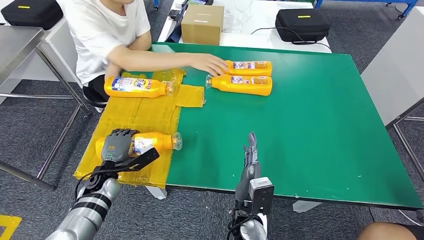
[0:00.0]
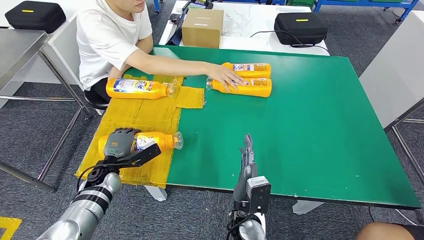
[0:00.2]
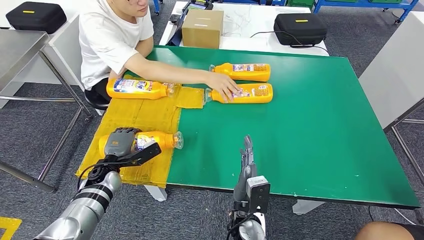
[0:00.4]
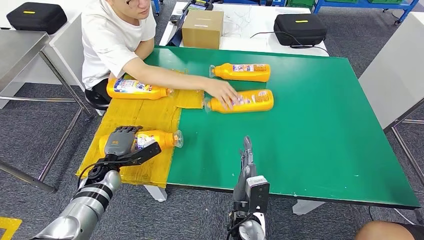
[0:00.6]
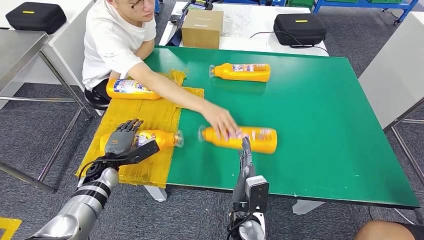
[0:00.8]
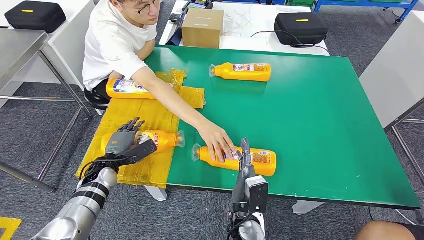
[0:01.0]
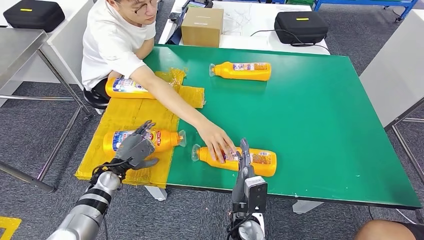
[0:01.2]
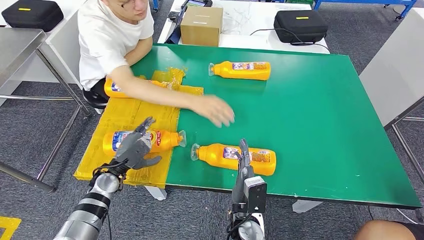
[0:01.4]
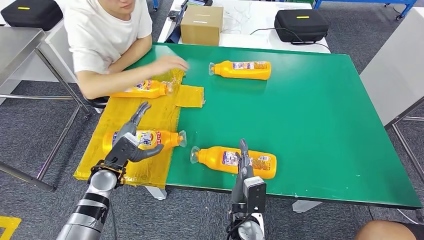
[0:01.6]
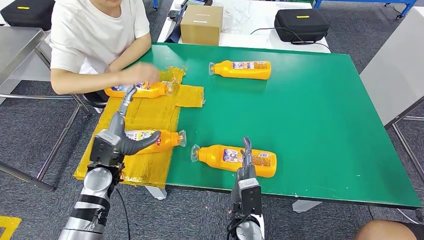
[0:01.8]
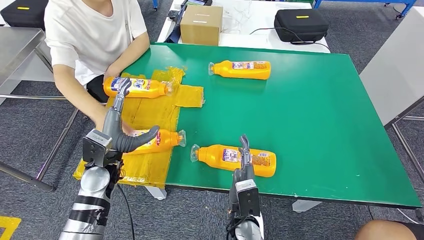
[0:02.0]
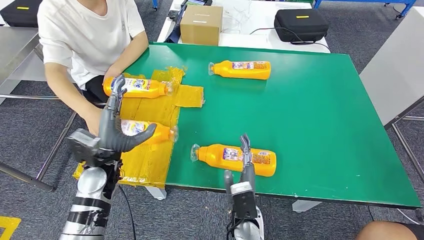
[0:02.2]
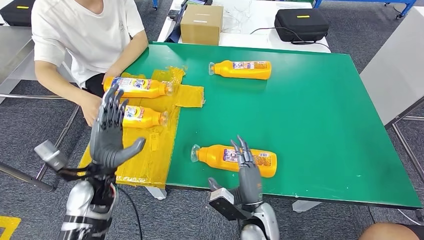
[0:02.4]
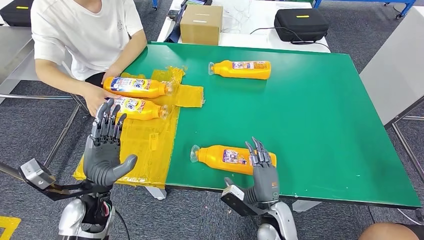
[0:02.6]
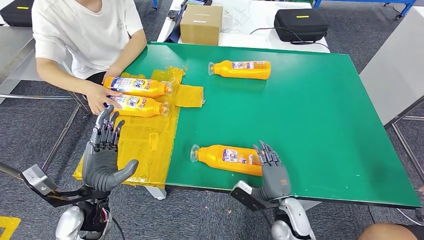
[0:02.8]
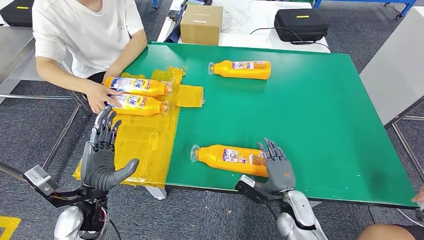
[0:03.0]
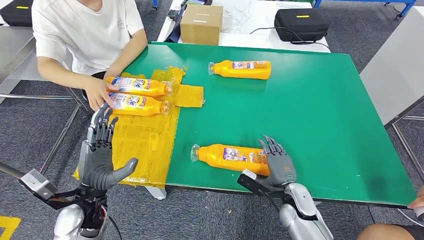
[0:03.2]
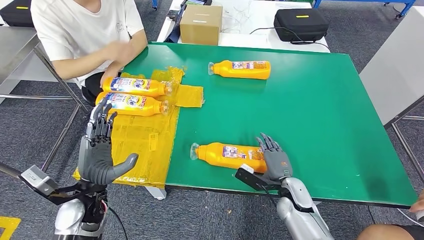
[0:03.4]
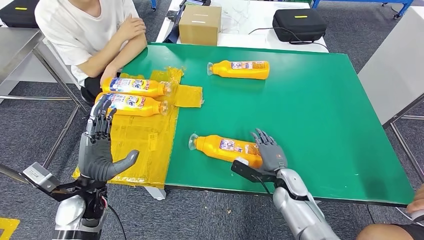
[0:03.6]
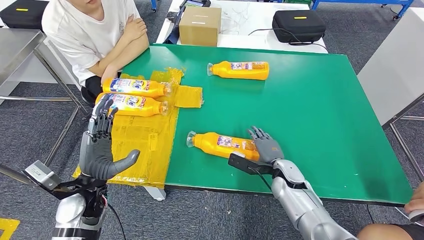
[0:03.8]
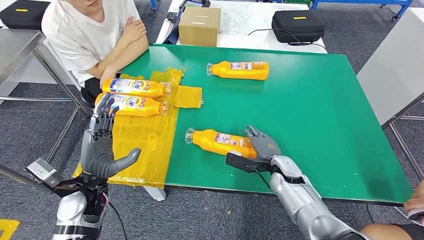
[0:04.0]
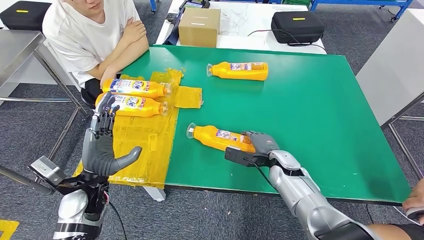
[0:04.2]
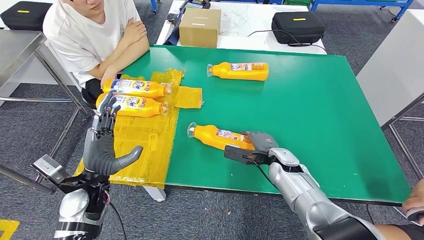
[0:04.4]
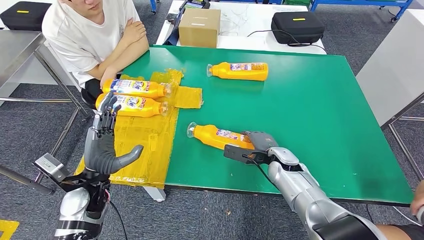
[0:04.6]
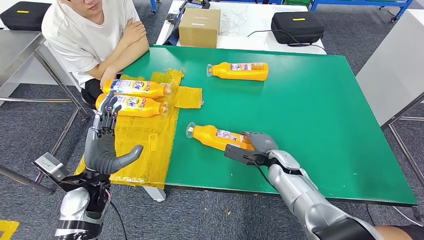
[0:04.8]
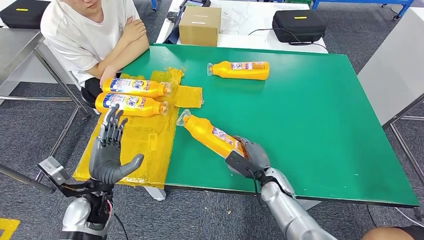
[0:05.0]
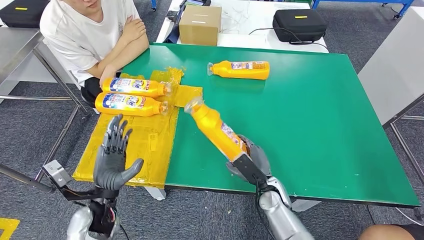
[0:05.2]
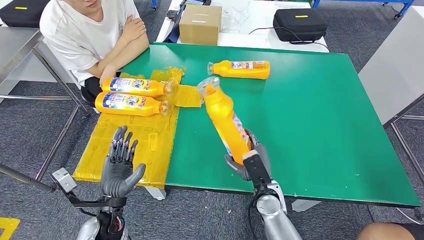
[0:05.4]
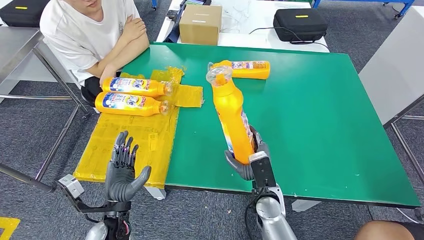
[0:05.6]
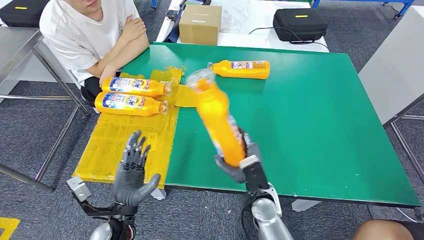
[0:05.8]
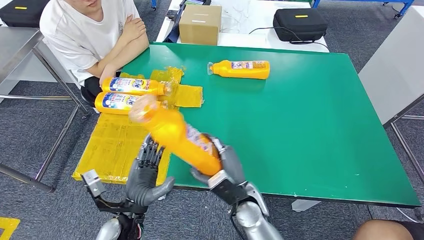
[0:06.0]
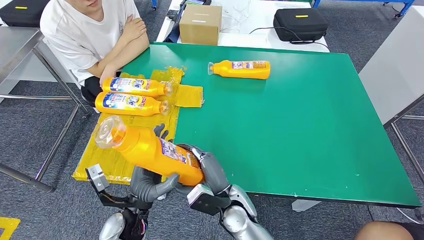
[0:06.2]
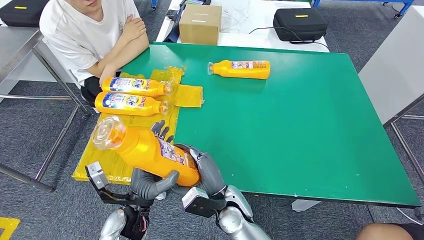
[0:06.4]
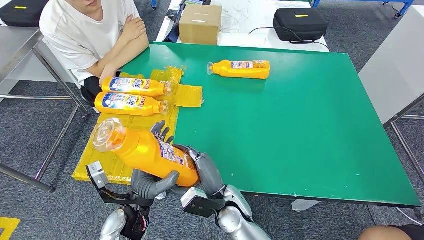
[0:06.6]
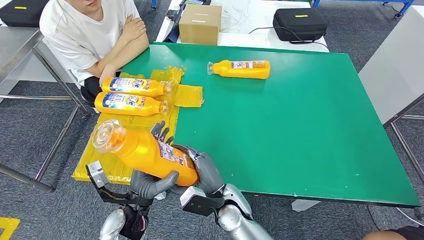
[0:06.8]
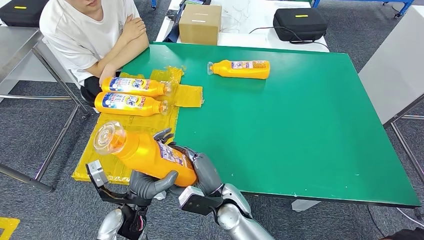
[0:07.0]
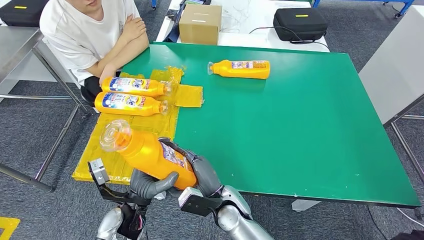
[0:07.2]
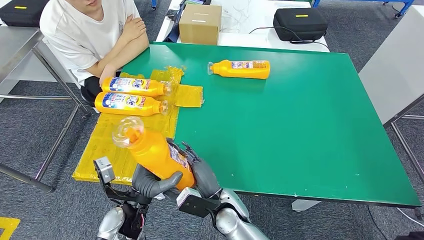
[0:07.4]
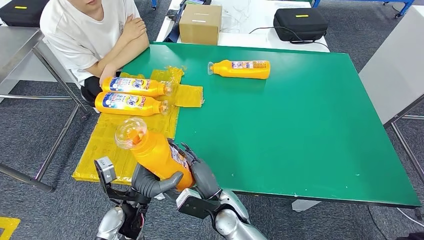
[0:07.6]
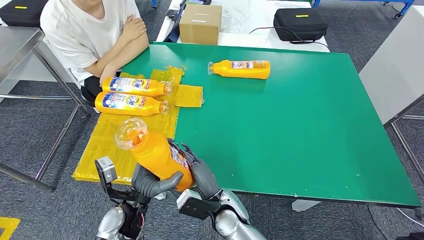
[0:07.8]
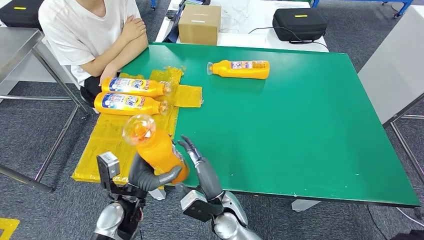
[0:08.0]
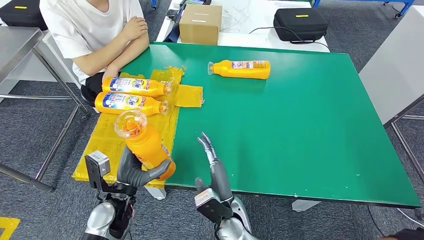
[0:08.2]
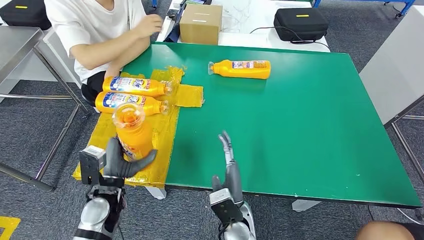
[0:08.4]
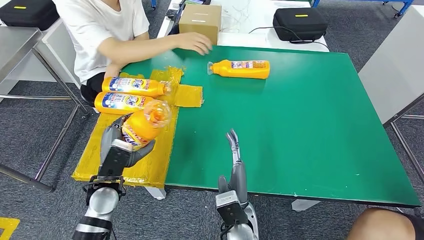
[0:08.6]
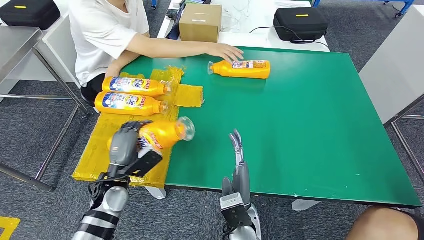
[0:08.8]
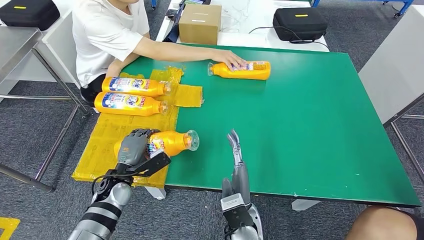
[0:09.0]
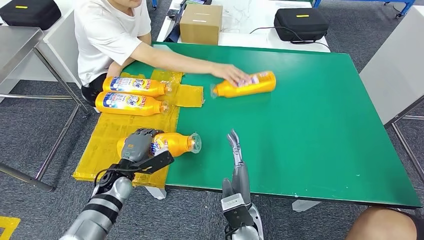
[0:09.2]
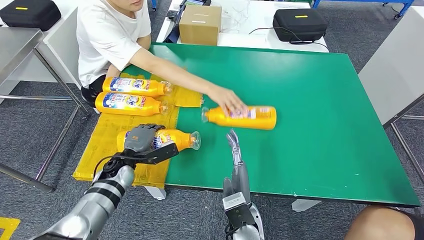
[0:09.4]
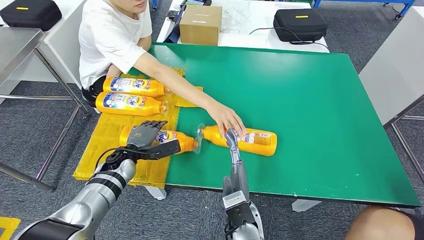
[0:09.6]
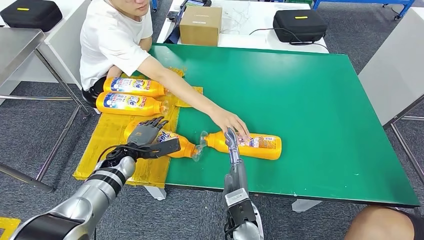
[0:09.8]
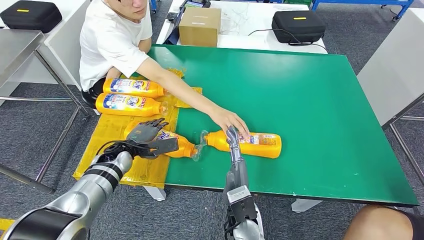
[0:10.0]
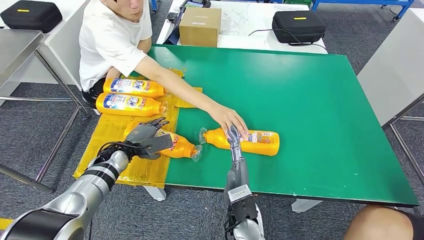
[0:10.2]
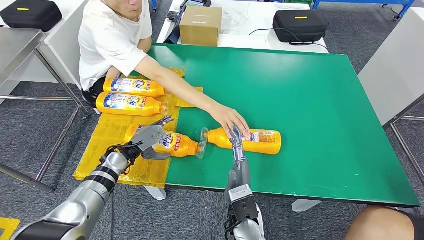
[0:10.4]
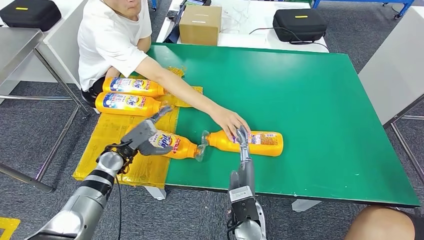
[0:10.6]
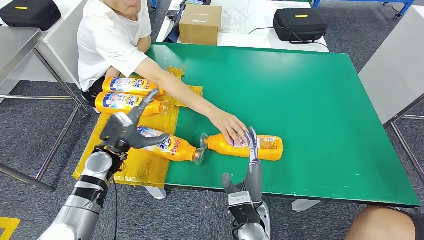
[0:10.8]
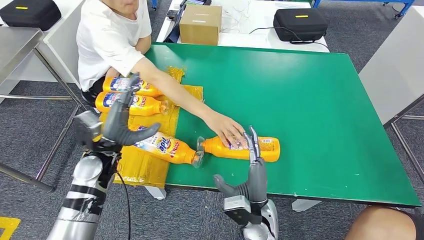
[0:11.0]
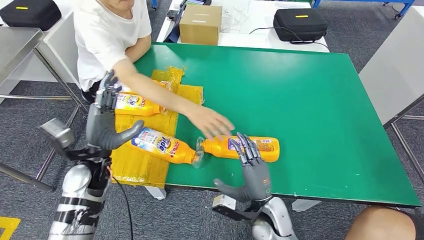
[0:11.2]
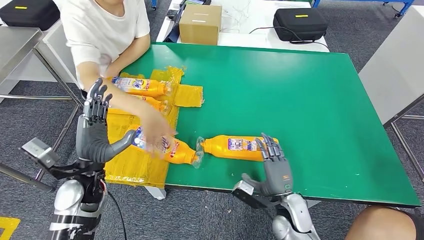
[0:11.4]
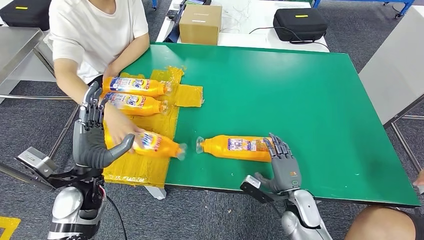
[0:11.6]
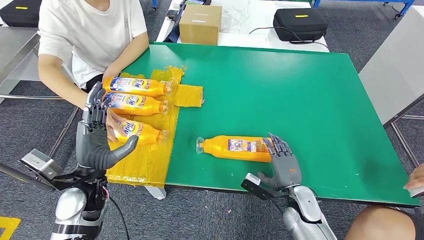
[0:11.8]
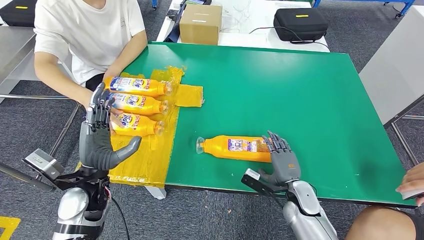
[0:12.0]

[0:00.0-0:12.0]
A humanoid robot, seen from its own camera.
Step, 1.6 to 6.4 s: Pick up the bottle from the table.
Step, 6.6 to 10.4 s: Flip the bottle to face forward.
0.0 to 1.6 s: The left hand shifts some 5 cm upward.
6.0 to 7.6 s: The right hand goes approximately 5 cm to the left.

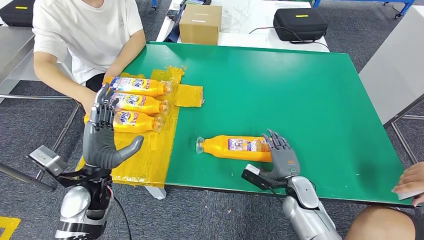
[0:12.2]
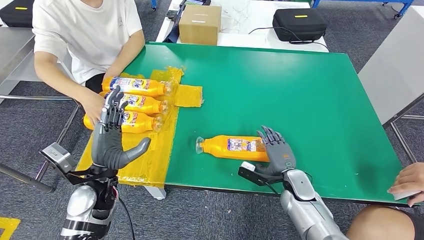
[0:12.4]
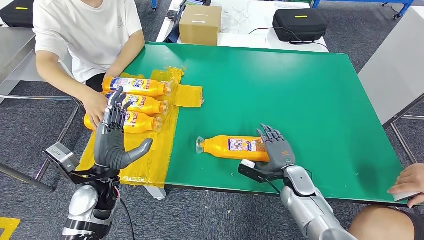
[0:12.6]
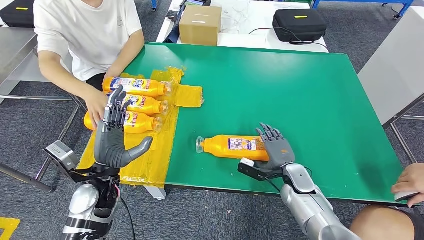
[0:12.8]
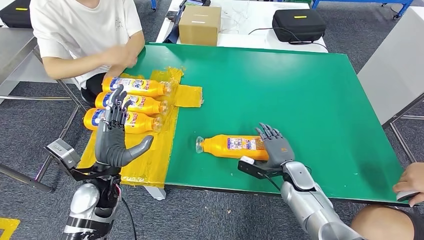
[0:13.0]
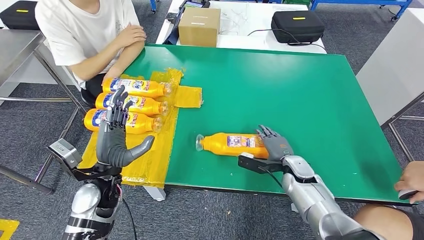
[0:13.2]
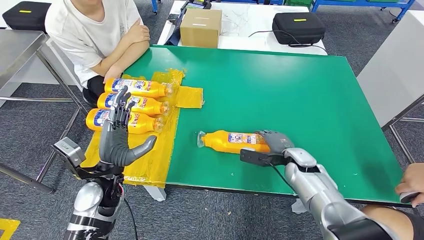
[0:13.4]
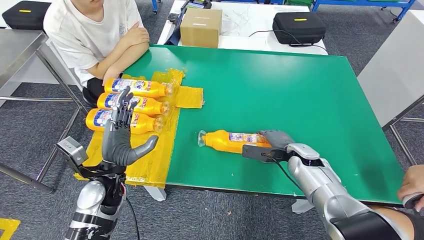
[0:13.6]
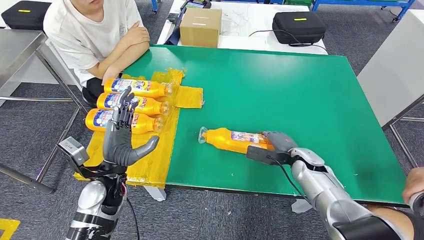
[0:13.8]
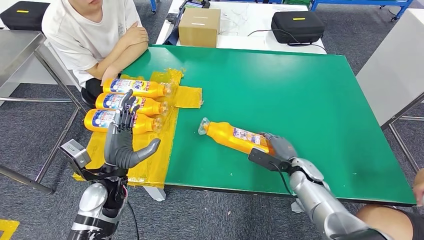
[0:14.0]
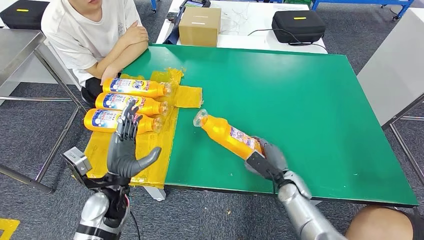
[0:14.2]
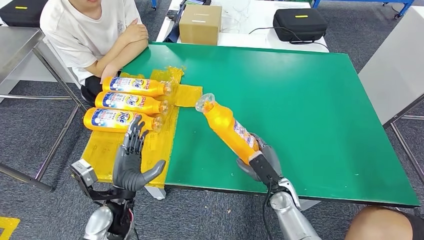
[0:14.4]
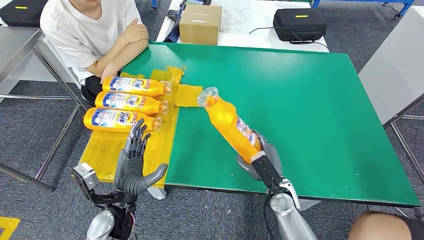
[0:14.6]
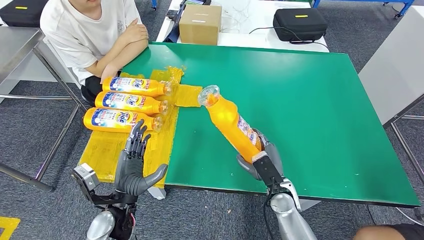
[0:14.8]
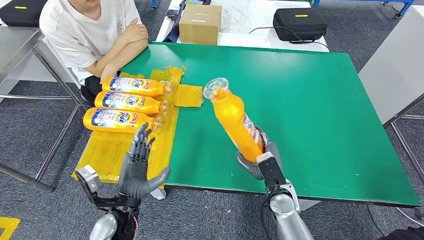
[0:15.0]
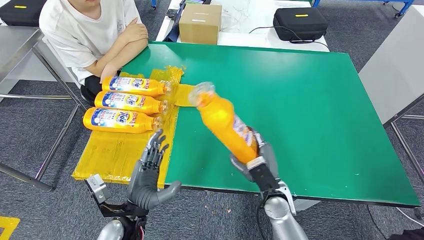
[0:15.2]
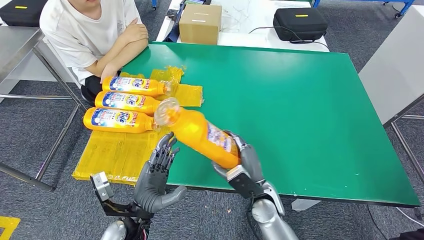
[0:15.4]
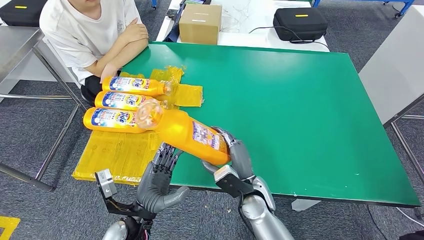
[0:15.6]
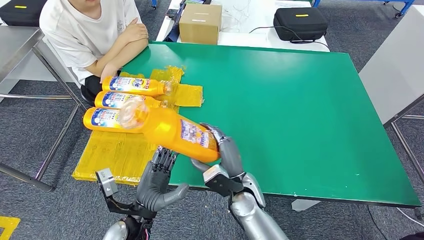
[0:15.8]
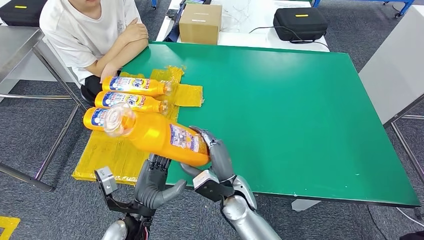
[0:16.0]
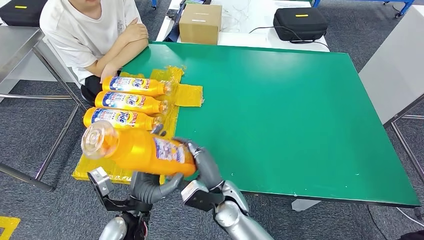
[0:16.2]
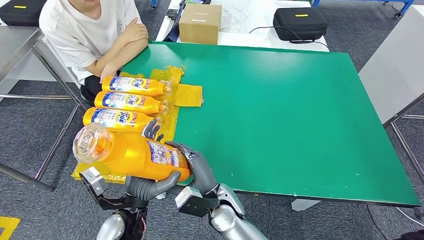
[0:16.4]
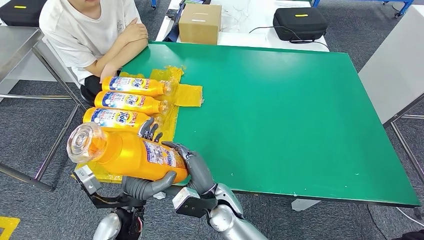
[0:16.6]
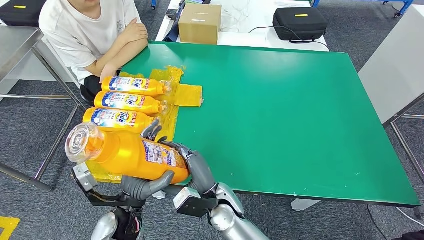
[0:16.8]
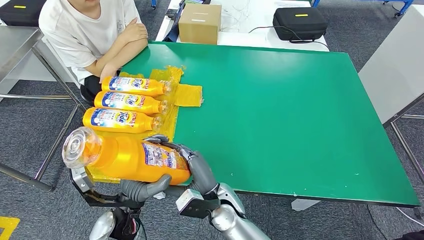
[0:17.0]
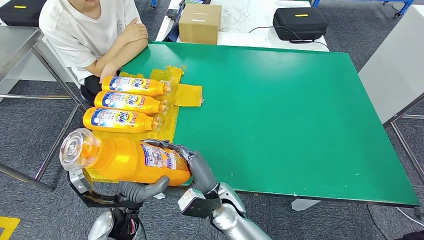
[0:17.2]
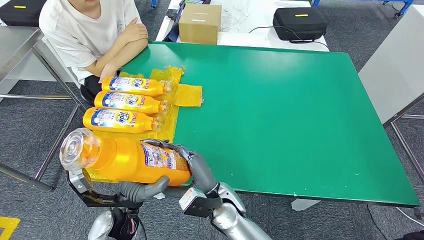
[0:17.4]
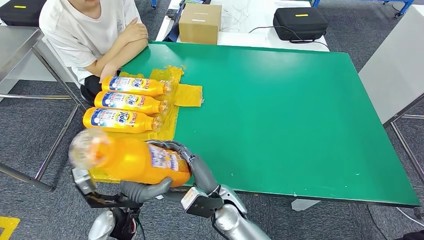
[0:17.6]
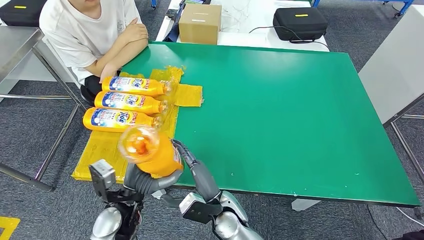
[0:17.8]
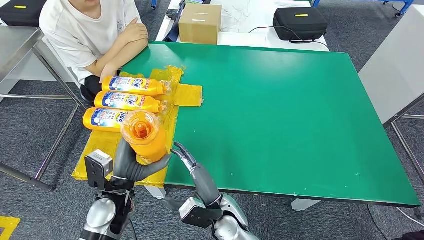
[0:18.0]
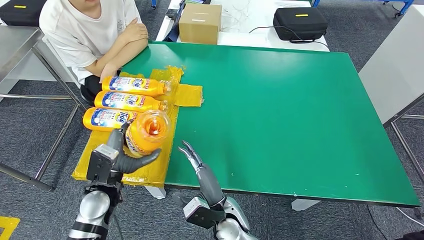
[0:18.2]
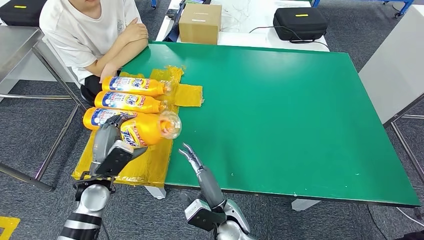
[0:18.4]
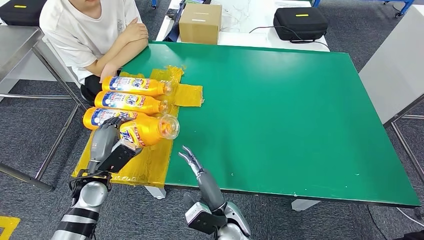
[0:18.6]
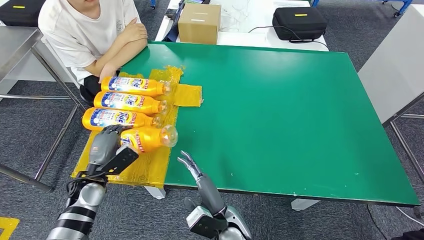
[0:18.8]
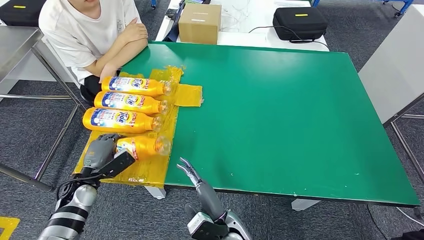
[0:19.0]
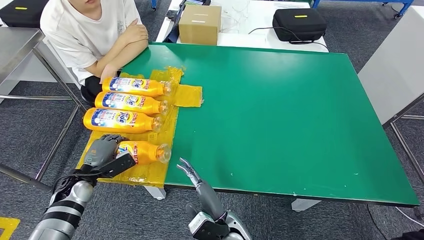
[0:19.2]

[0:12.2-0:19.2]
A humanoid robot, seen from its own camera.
Step, 12.2 to 14.8 s: Pick up the bottle from the table.
15.0 to 16.4 s: The right hand shifts roughly 15 cm to the left.
16.4 to 17.8 s: There are only small adjustments of the hands.
17.8 to 19.2 s: The left hand goes some 20 cm to the left, while the right hand shifts by some 5 cm.
